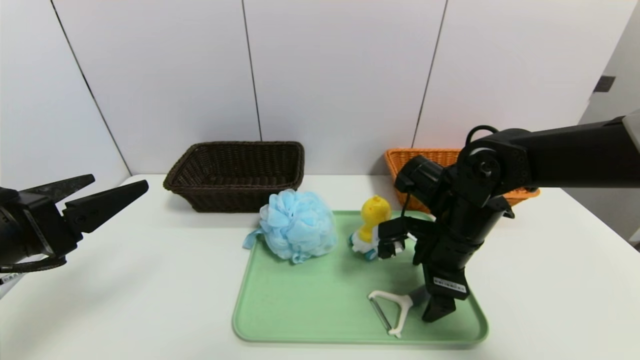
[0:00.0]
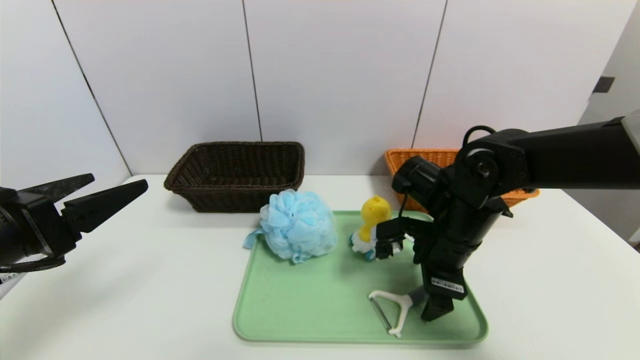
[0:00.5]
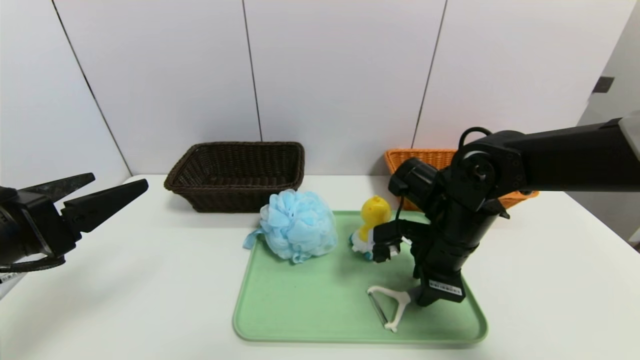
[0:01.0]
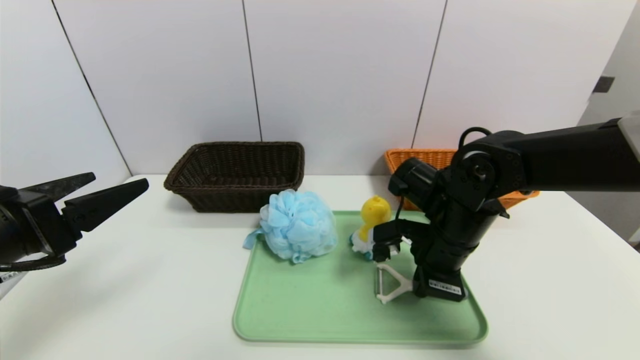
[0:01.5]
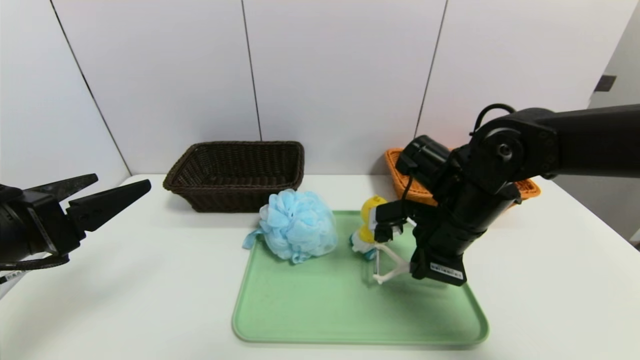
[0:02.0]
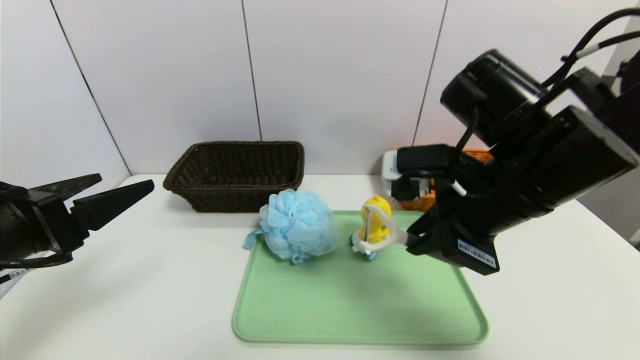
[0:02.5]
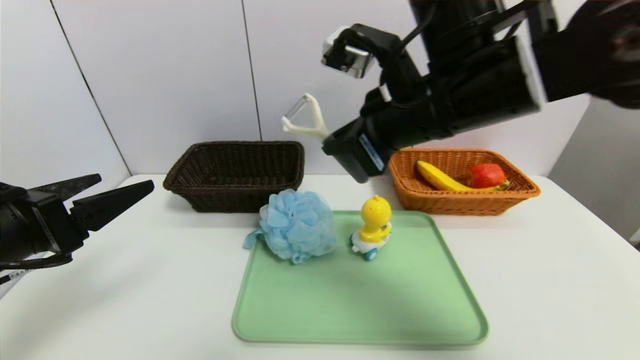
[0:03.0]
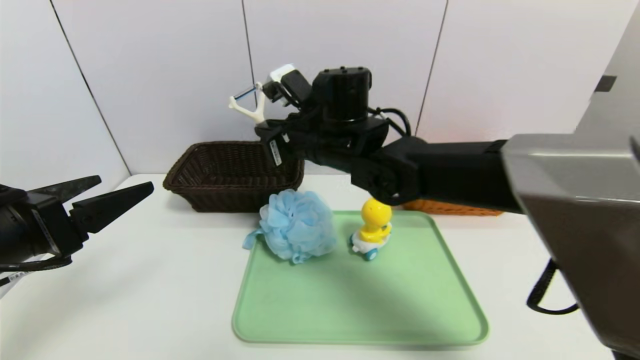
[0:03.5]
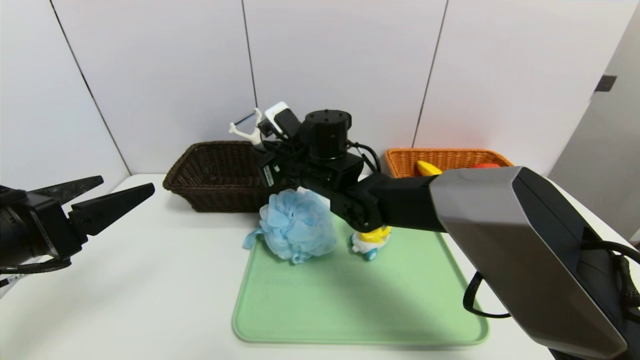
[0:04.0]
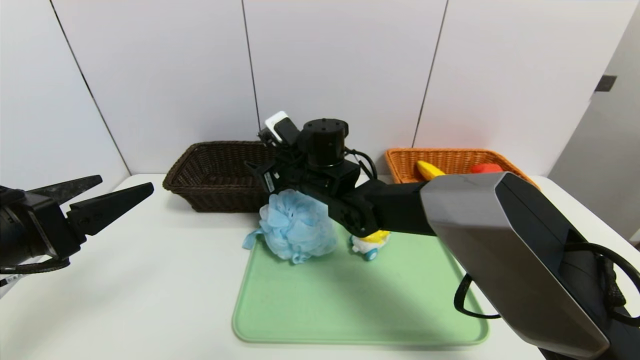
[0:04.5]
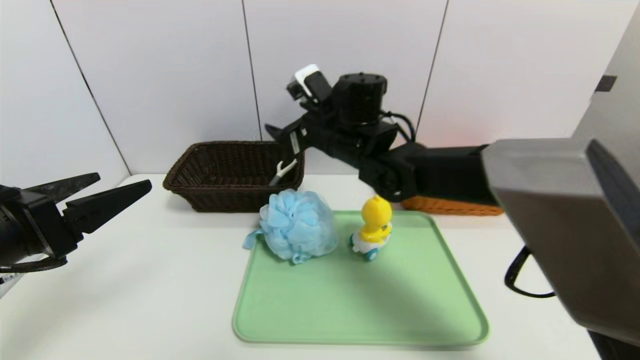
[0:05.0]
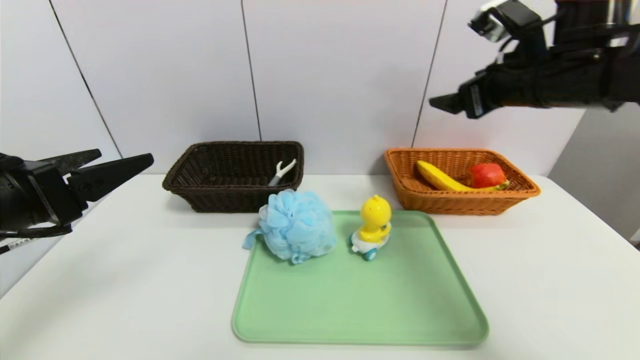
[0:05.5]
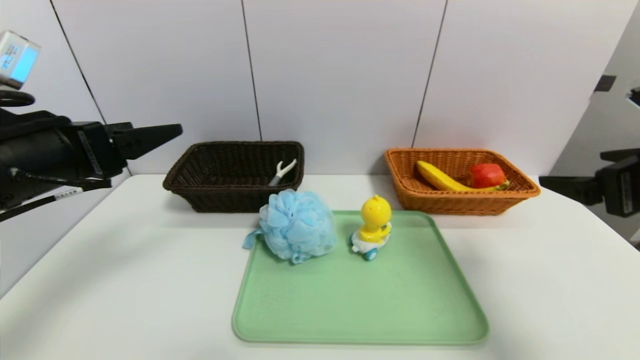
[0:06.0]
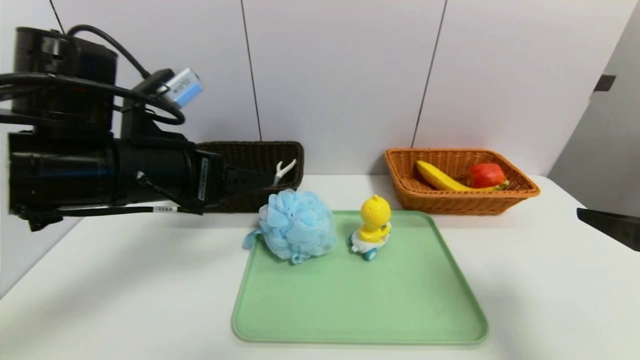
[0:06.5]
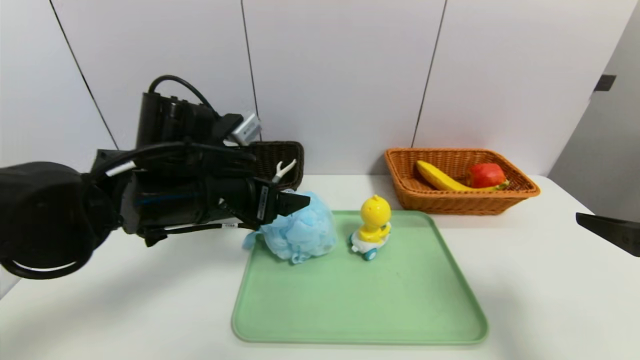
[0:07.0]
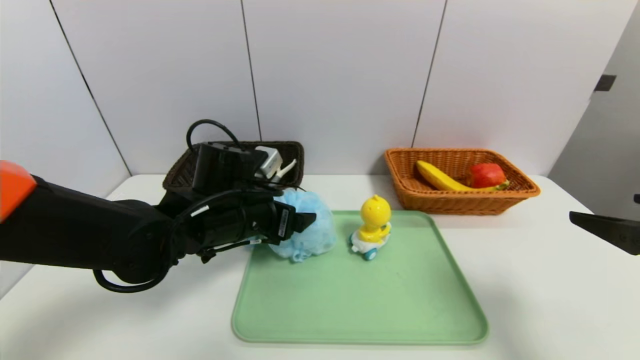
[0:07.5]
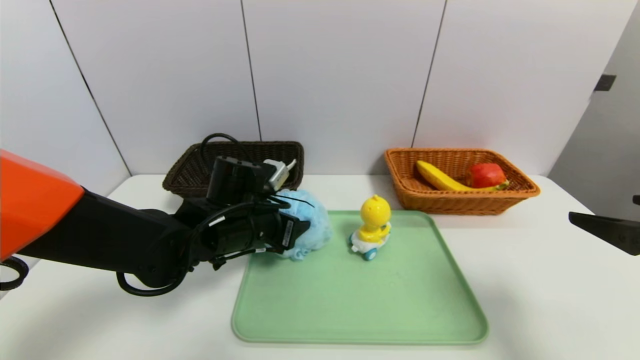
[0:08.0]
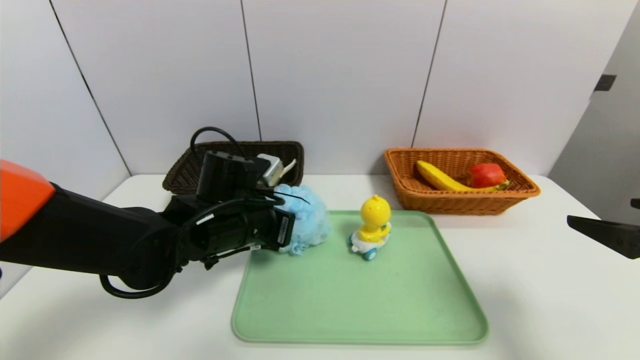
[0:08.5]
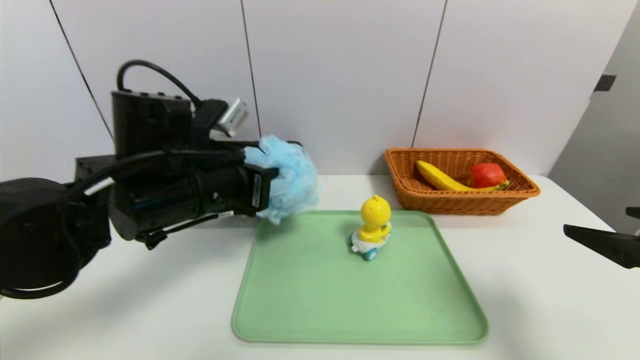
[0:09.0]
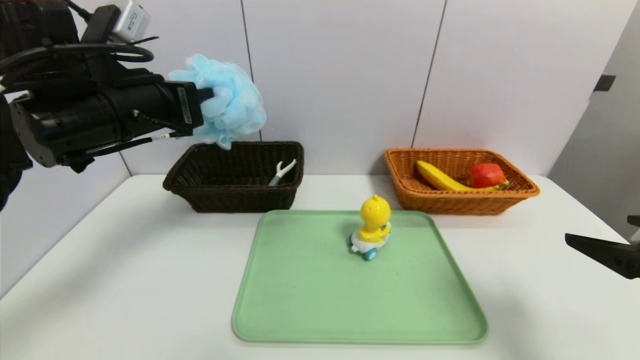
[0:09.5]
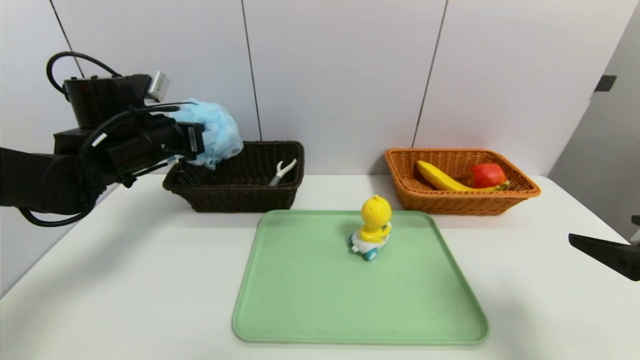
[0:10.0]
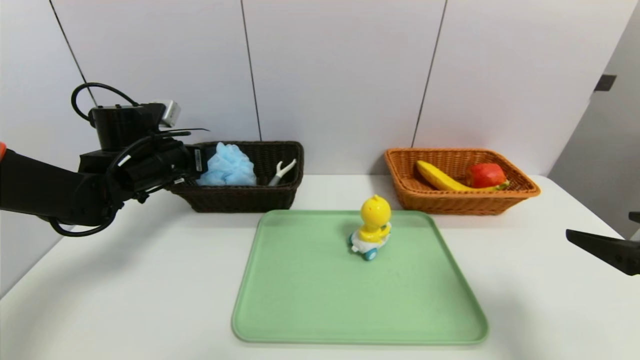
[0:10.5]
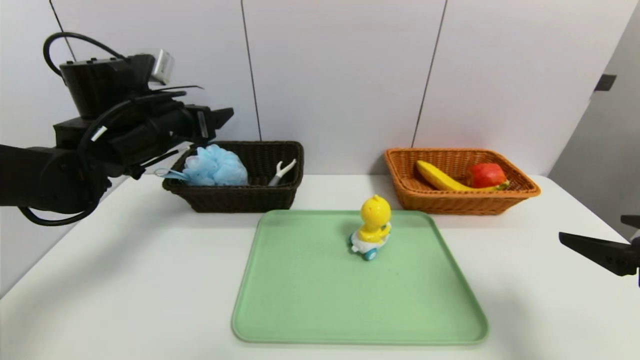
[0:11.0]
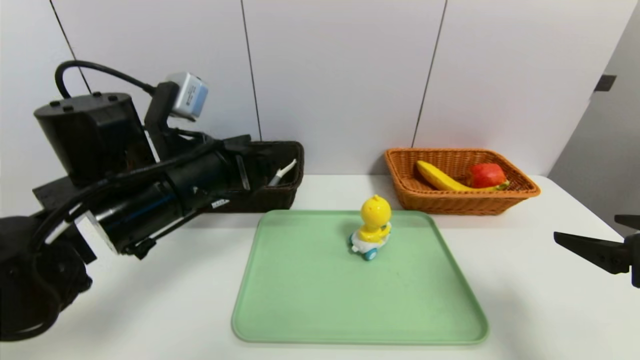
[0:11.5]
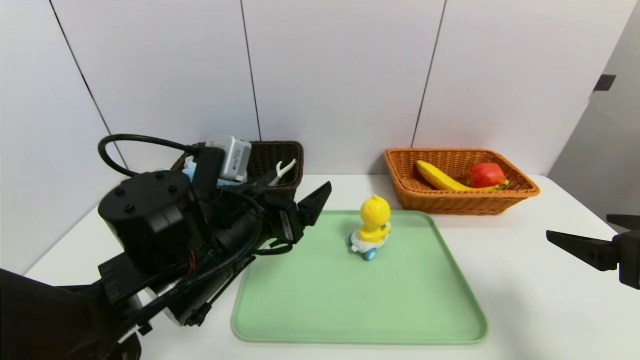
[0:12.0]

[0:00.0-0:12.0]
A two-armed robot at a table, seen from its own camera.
Task of the whole recording: place the food in the right basket with the right gripper, and place the non food items in the left basket with the left gripper.
Step, 0:05.0 to 0:10.5: Grasp the bath ball and put it in the left basket.
0:00.0 to 0:02.0: The right gripper closes its fingers.
0:02.0 to 0:04.0: The right gripper moves to the left and forward, approximately 20 cm.
0:04.0 to 0:06.0: The left gripper shifts some 5 cm forward, while the right gripper is displaced to the right and backward by roughly 40 cm, and opens.
0:06.0 to 0:08.0: The left gripper moves to the right, downward and forward, about 25 cm. Meanwhile the right gripper moves backward, about 5 cm.
0:08.0 to 0:10.0: The left gripper heads to the left and upward, covering roughly 15 cm, and closes its fingers.
0:10.0 to 0:12.0: The left gripper travels to the right and backward by about 20 cm, and opens.

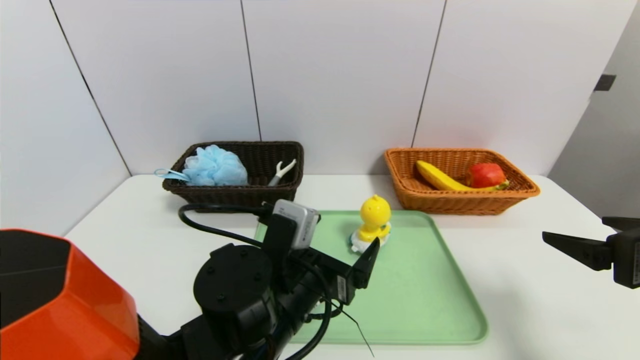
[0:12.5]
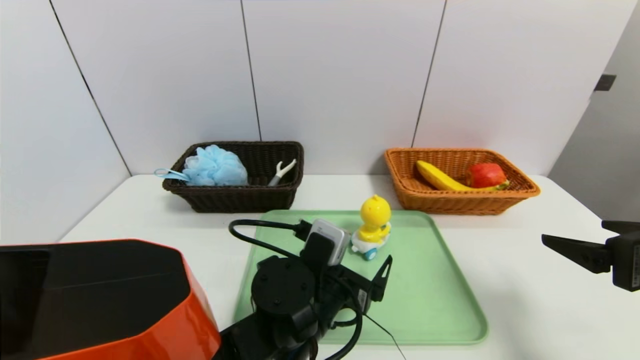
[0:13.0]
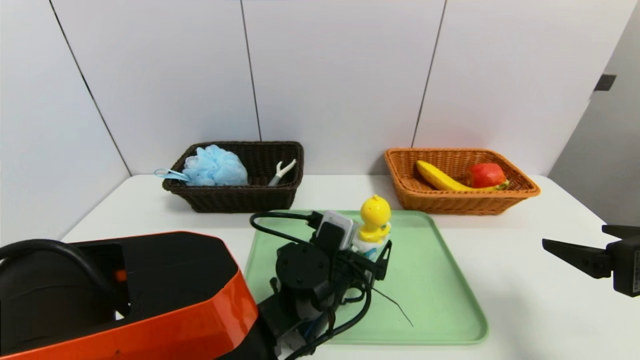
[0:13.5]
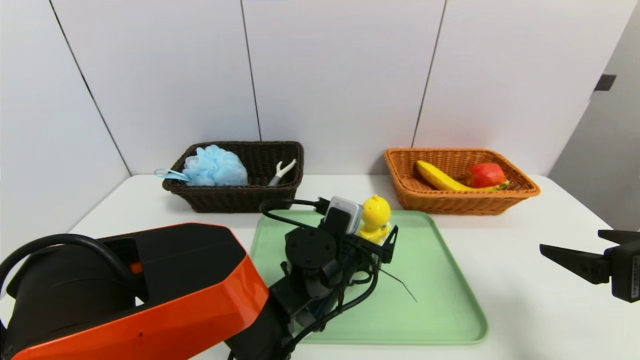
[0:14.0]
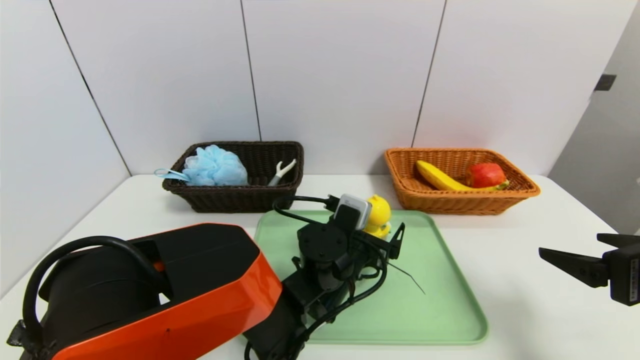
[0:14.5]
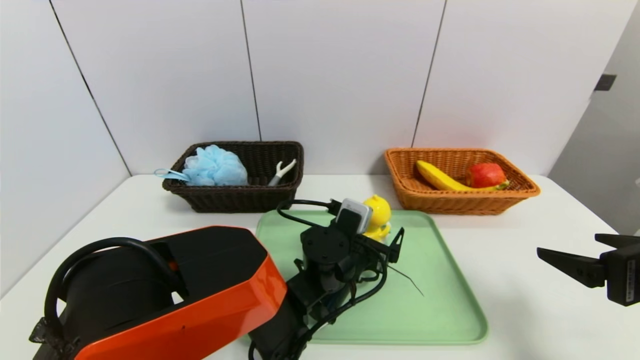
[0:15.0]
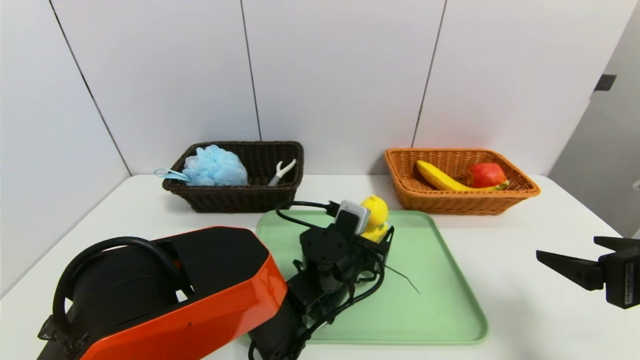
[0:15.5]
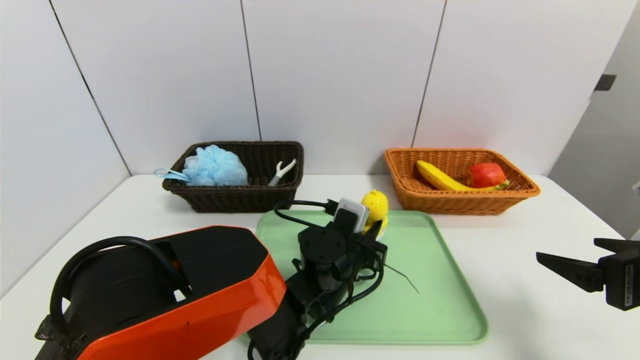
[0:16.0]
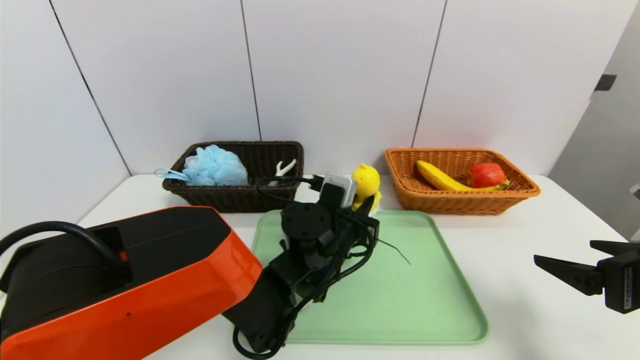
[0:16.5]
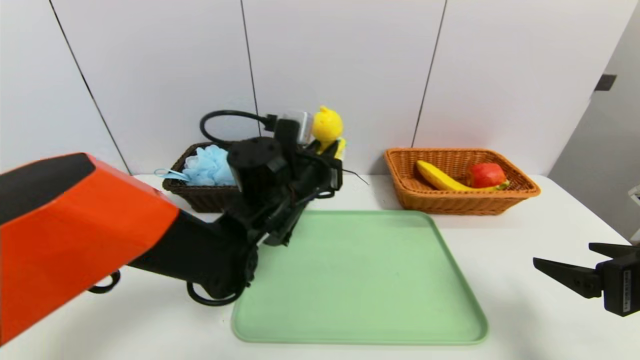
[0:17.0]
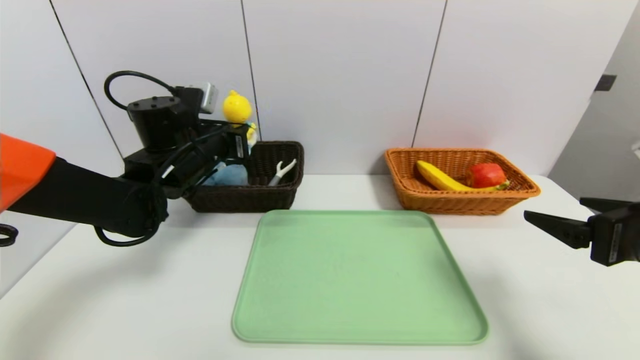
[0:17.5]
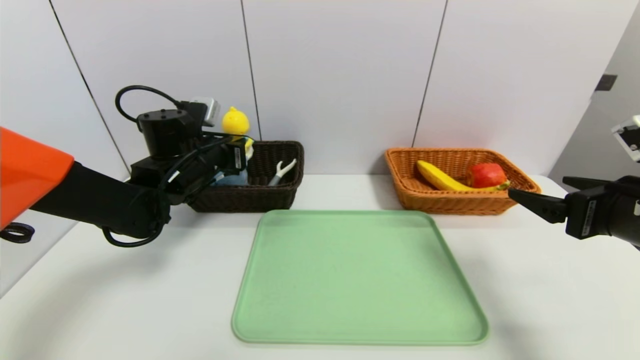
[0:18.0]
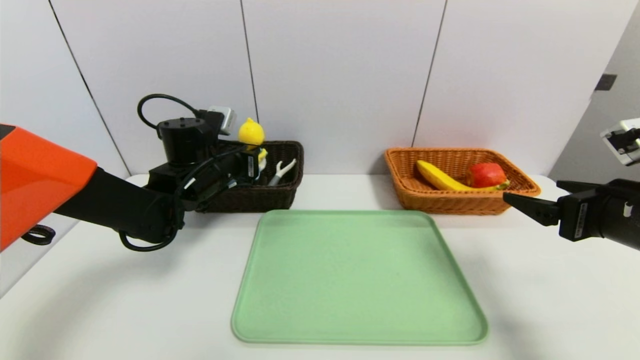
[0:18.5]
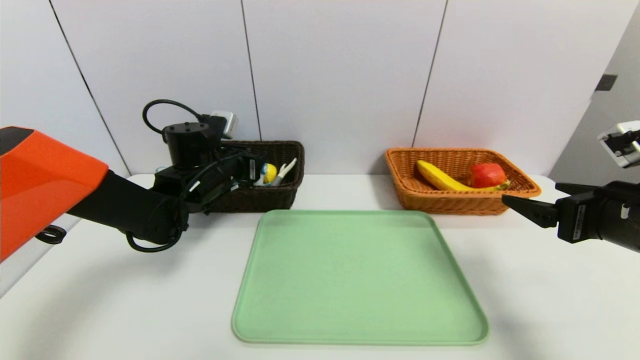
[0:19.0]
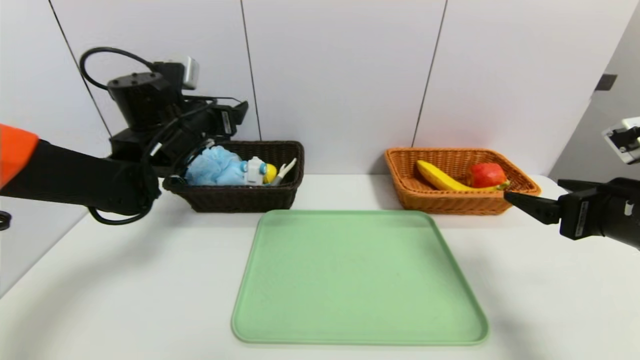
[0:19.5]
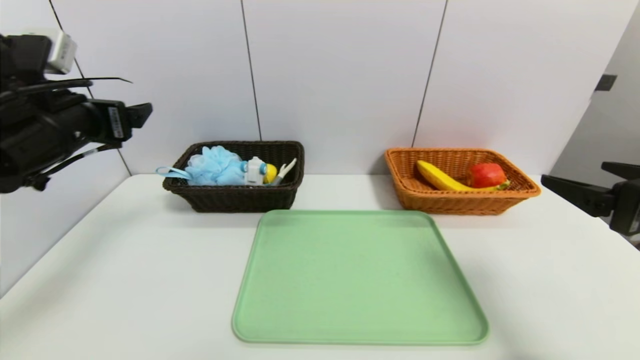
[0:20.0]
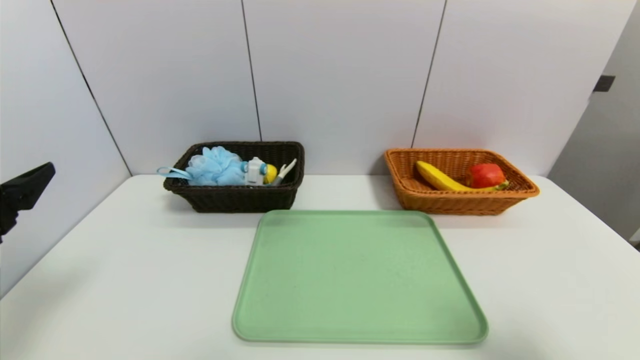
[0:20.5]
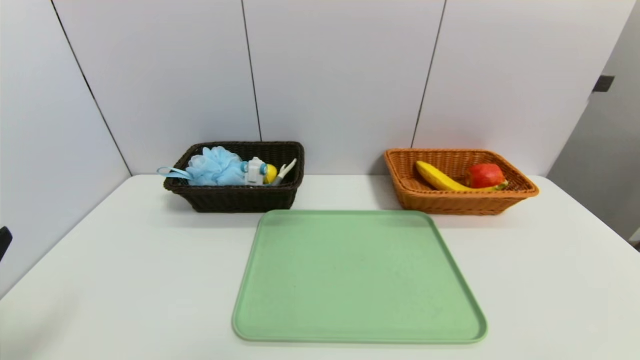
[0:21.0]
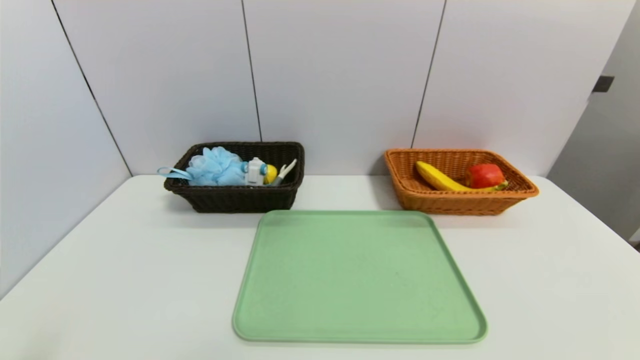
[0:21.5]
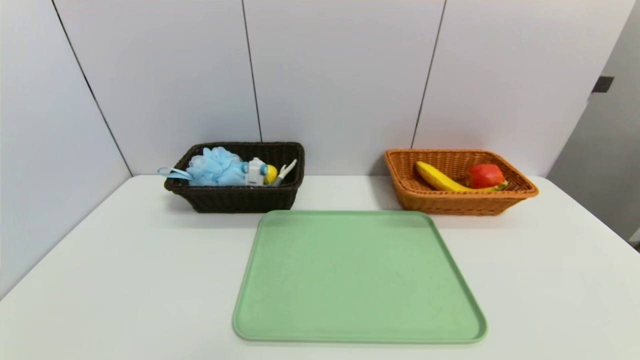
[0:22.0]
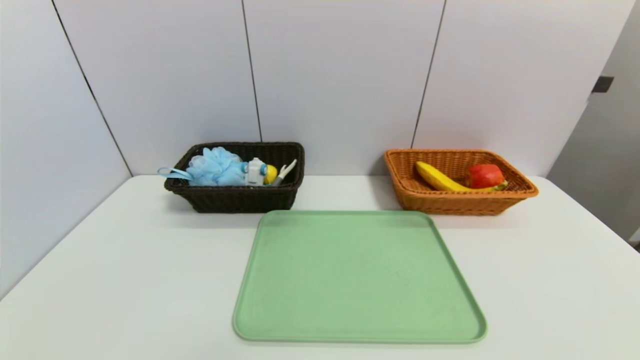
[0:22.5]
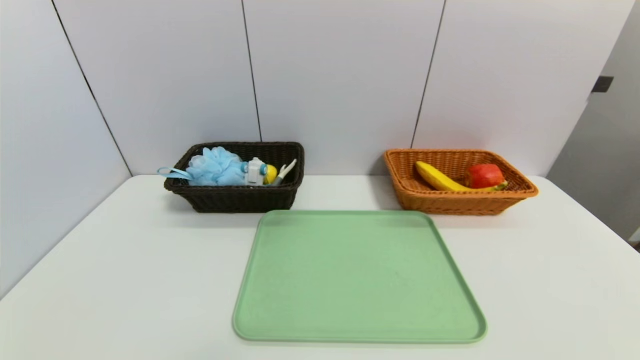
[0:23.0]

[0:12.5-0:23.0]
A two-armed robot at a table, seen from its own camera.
Task of the whole recording: place the food in the right basket with the right gripper, and place the non food items in the left basket with the left gripper.
Step, 0:12.5 to 0:19.0: Grasp the duck toys and put it in the left basket.
0:12.5 to 0:14.5: The left gripper heads forward and to the right, covering about 10 cm.
0:14.5 to 0:16.5: The left gripper closes up.
0:16.5 to 0:19.0: The left gripper is displaced to the left and forward by approximately 20 cm, and opens its fingers. The right gripper travels forward by about 5 cm.
0:19.0 to 0:21.0: Both grippers travel together backward, roughly 30 cm.
0:21.0 to 0:23.0: The left gripper travels backward and downward by about 10 cm.
